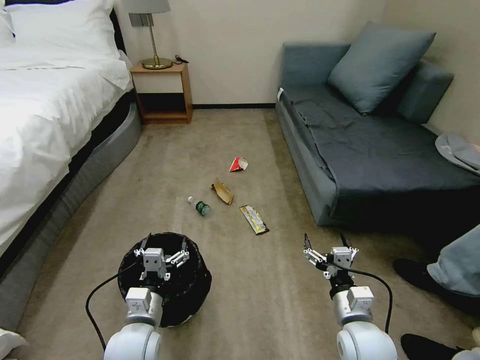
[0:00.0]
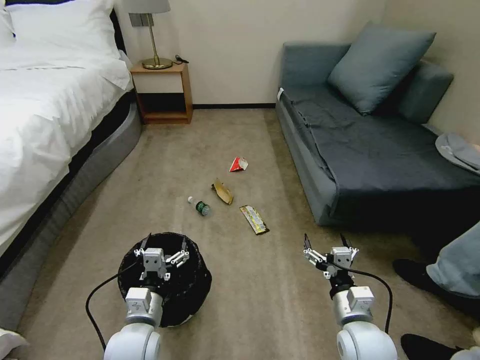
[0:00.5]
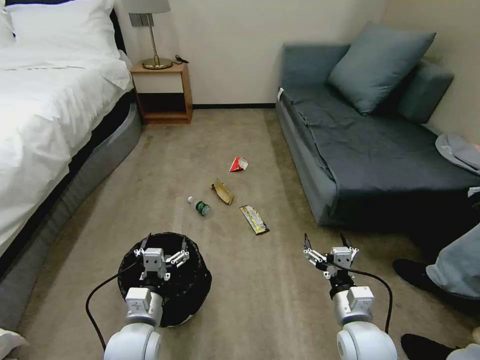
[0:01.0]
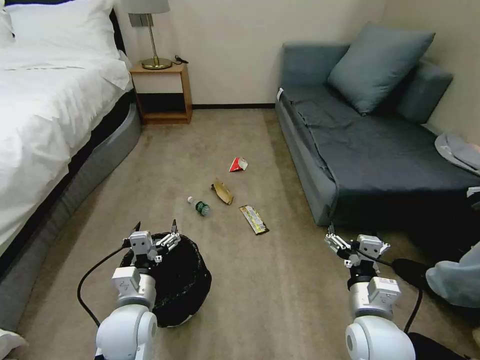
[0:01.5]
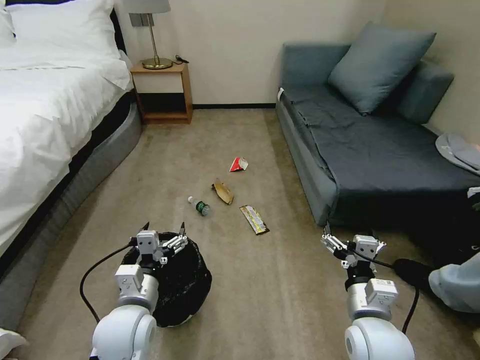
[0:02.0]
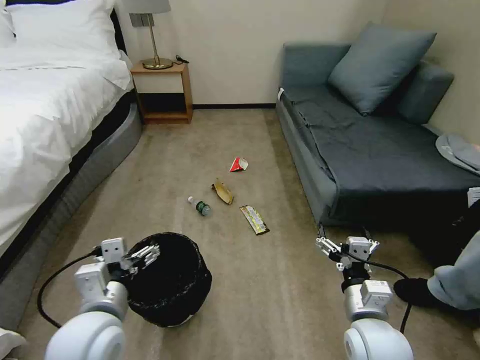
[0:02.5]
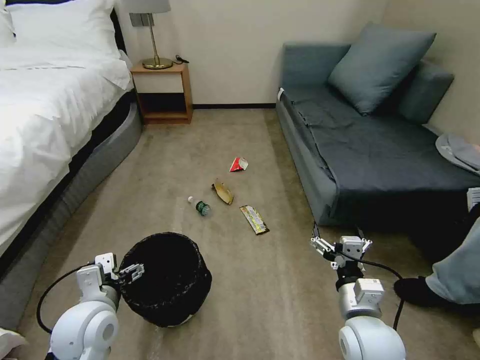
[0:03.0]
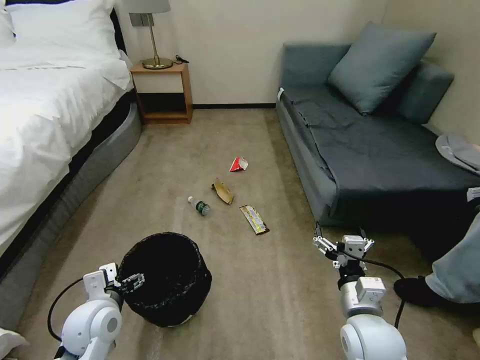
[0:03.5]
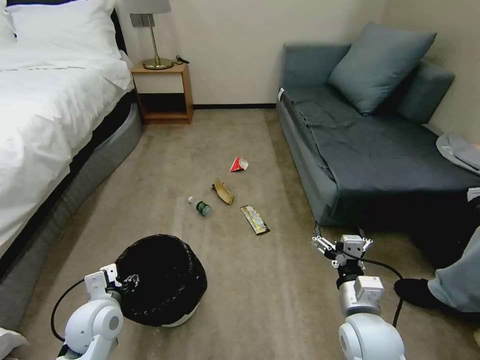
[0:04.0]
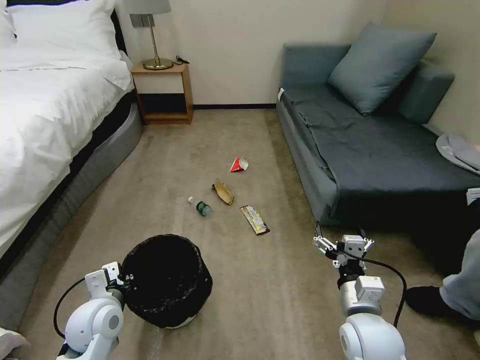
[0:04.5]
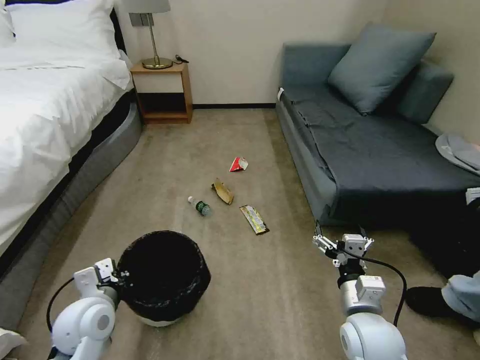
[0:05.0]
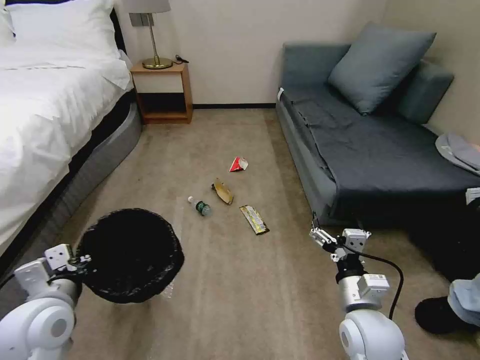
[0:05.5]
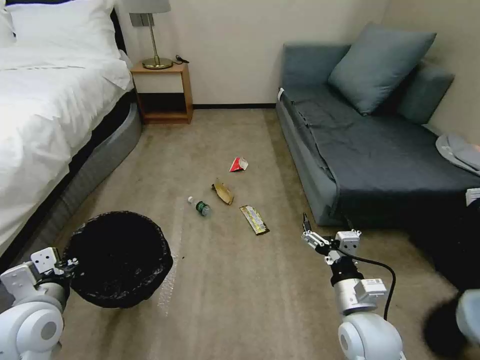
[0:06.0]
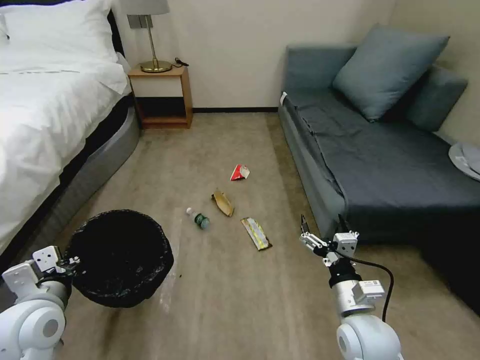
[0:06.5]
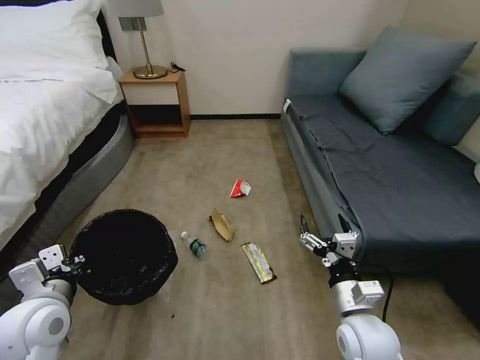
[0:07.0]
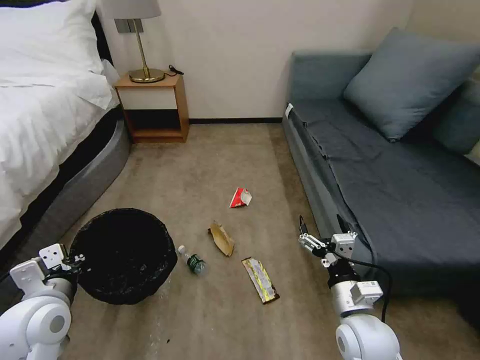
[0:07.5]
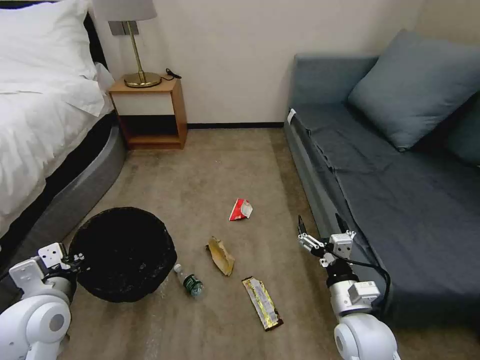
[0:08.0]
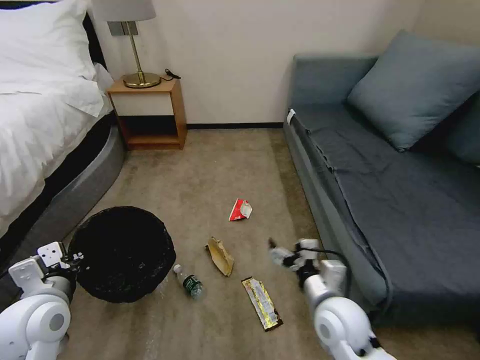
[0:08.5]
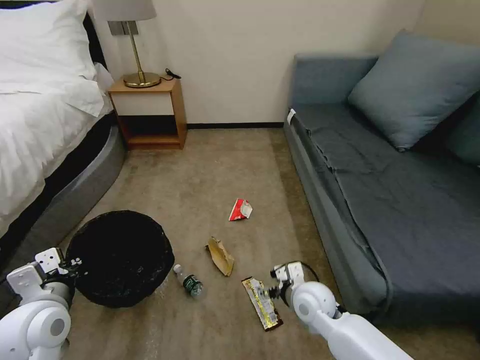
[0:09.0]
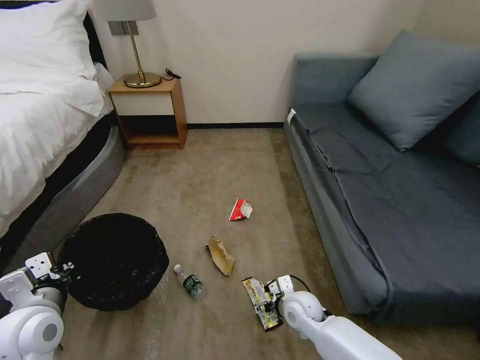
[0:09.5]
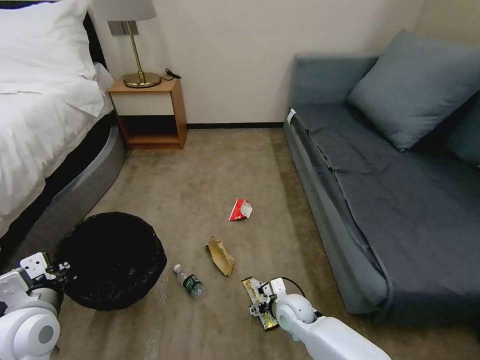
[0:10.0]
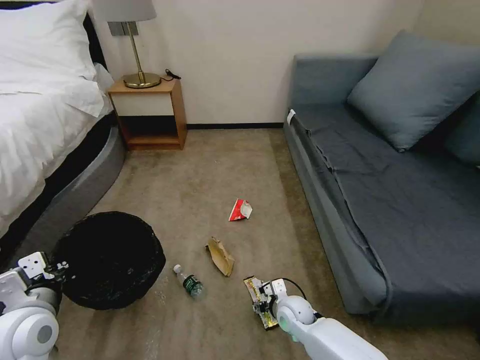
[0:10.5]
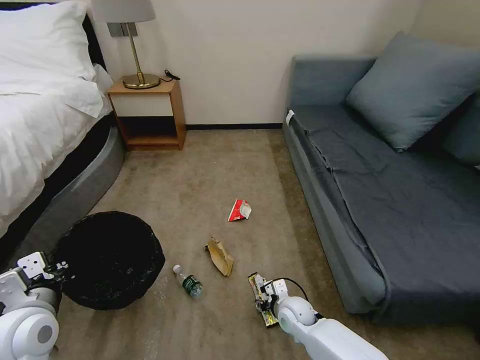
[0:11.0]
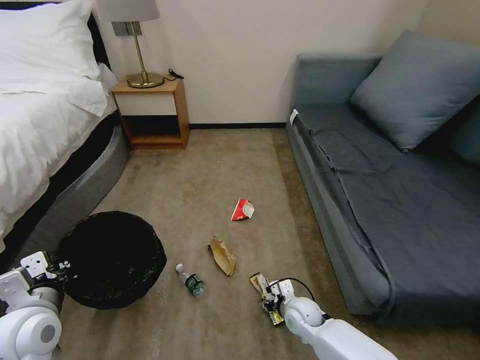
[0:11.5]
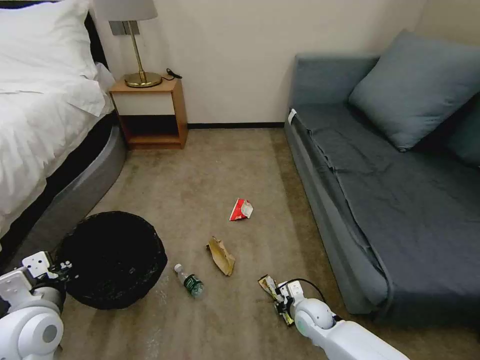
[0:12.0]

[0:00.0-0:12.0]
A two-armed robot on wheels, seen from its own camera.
Task of the whole recording: Pick up the trash bin, then pick up the garbage on the floor and place it into the trash bin.
0:02.0 to 0:04.0: The left gripper moves to the left, approximately 10 cm, and closes up.
0:04.0 to 0:06.0: The left gripper shifts roughly 10 cm upward and to the left, and closes its fingers.
0:08.0 to 0:10.0: The right gripper goes roughly 20 cm downward, forward and to the left.
0:10.0 to 0:12.0: The right gripper is displaced to the right by about 5 cm, and closes its fingers.

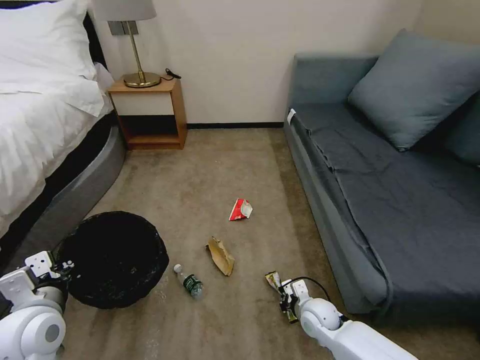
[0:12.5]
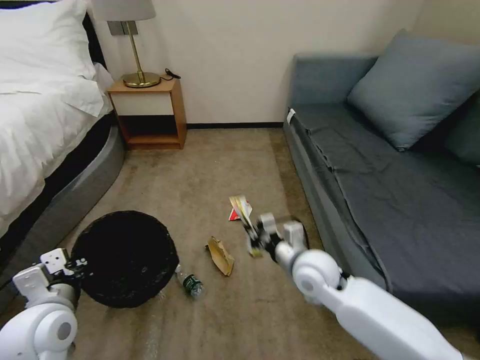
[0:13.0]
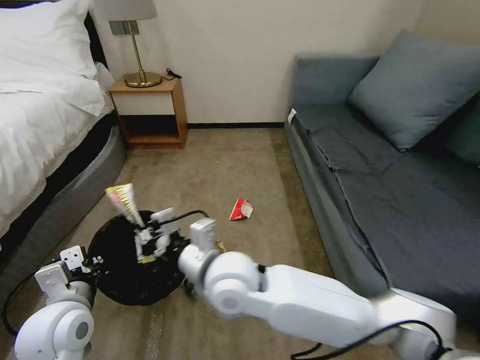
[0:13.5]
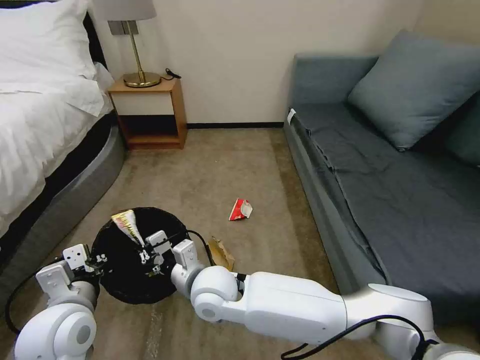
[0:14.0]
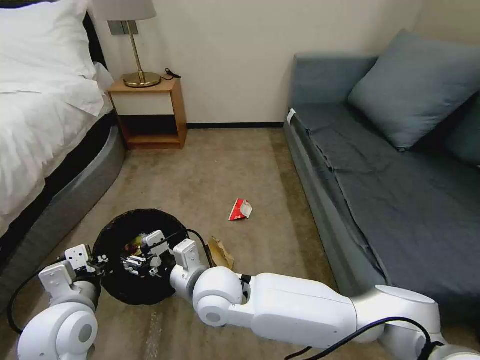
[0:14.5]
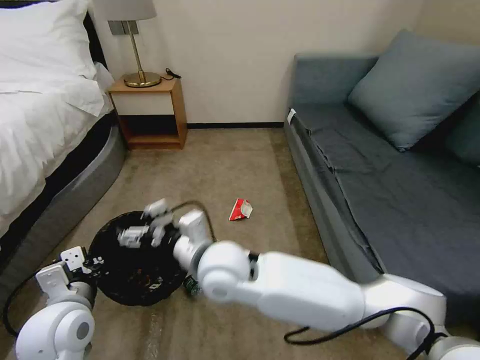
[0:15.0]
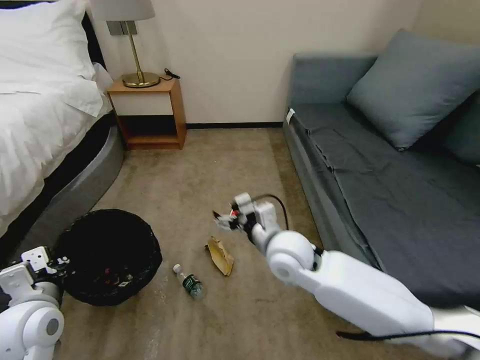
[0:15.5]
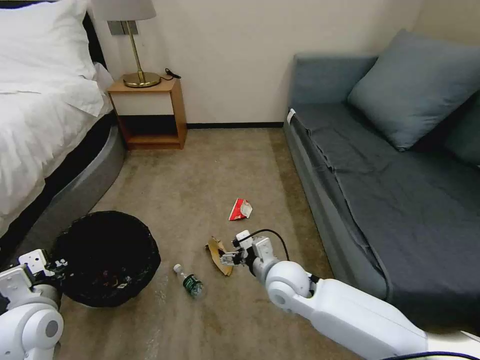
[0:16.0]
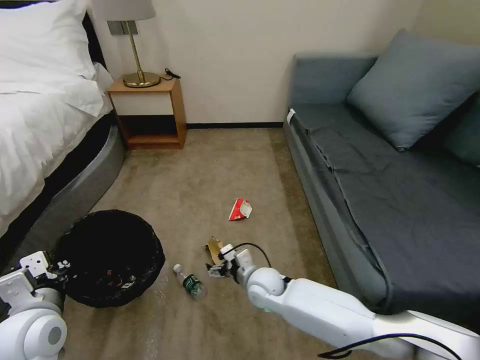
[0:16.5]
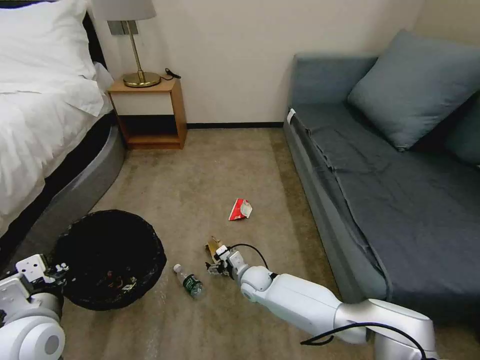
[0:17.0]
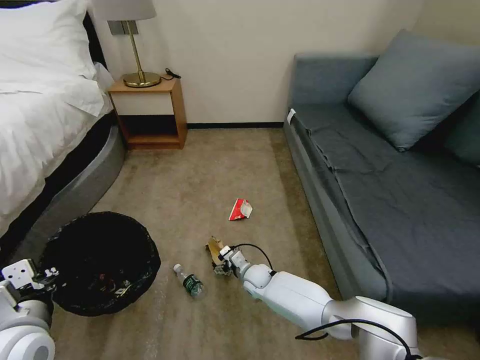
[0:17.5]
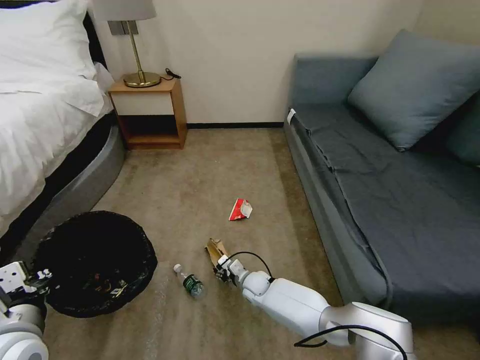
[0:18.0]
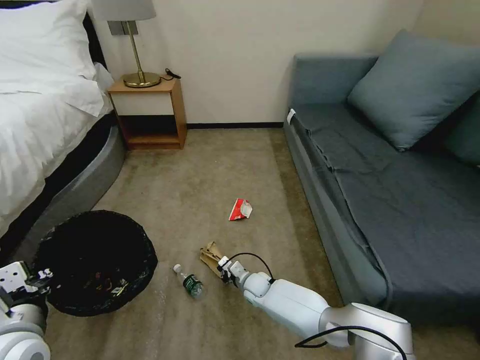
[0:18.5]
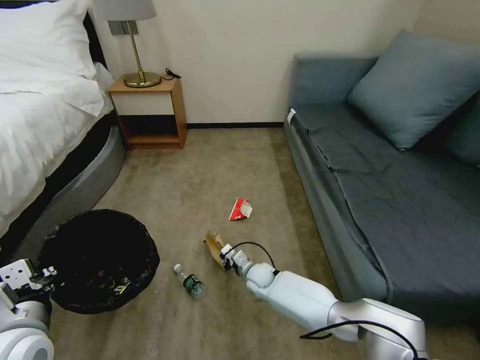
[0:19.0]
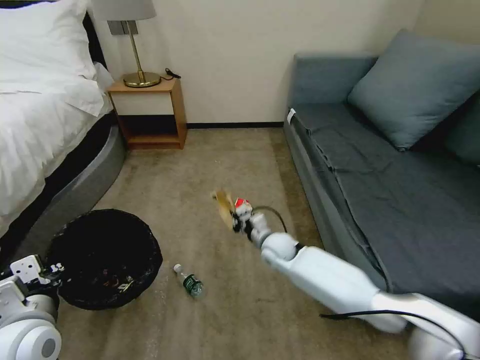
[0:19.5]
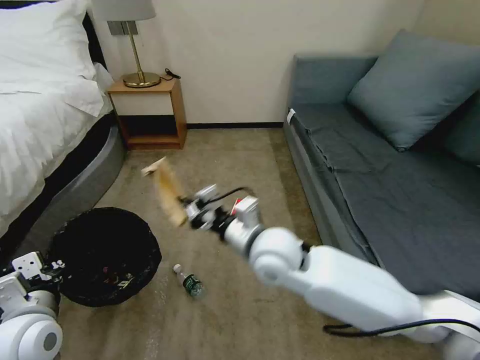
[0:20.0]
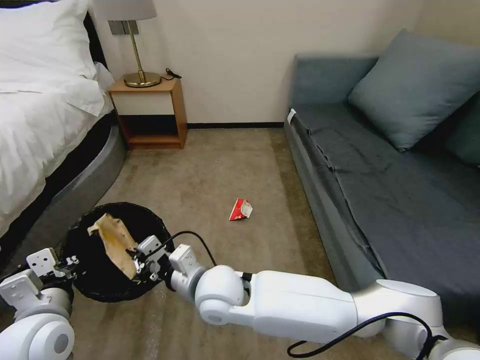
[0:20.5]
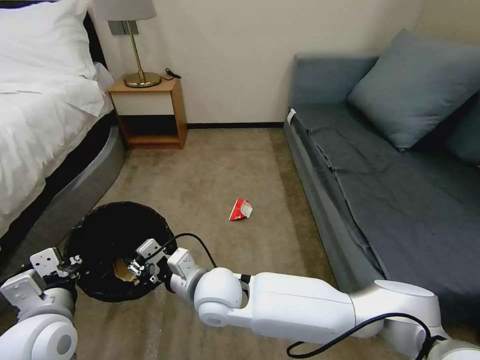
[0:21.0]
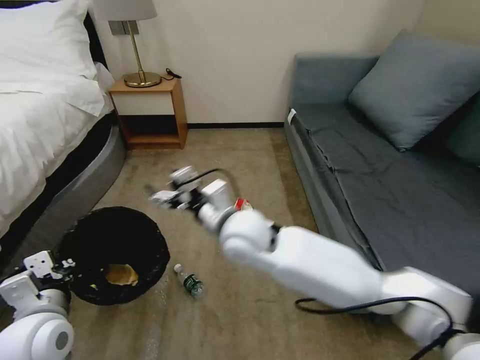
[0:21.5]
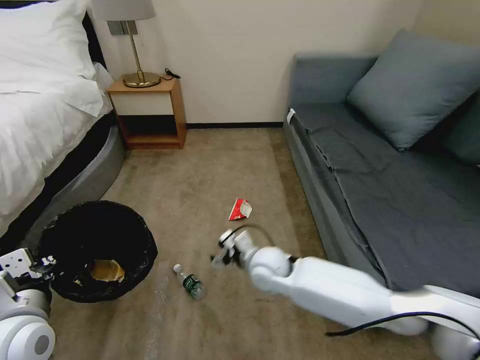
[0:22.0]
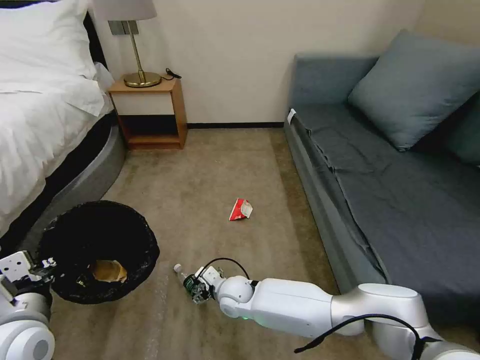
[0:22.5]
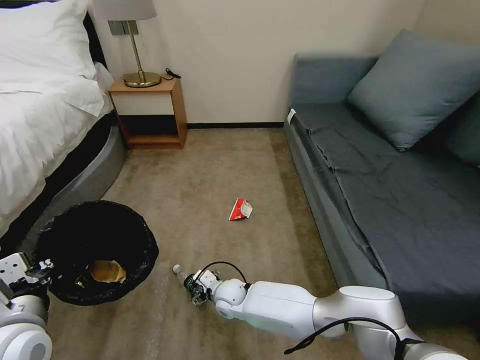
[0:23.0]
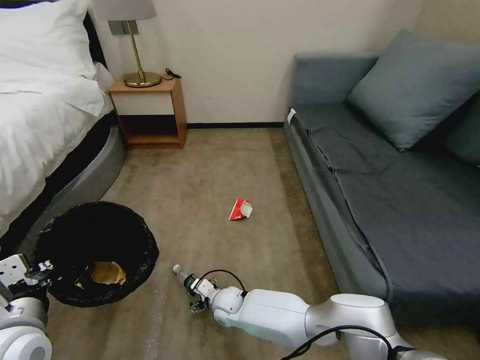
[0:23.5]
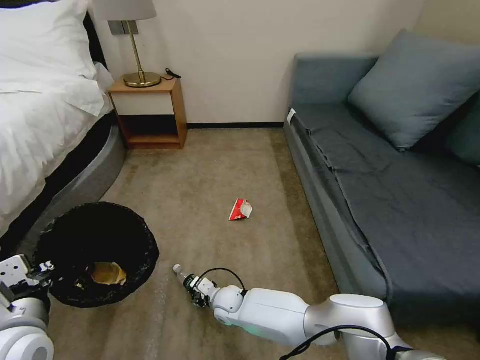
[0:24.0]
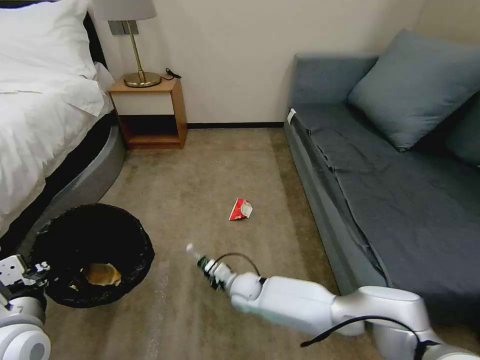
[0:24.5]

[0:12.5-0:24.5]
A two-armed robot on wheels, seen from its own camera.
Task of the whole recording: Pick up the trash bin, then pick up the garbage on the floor and place it into the trash bin.
0:12.5 to 0:14.5: The right gripper goes some 35 cm to the left and upward, and opens up. The left gripper shifts about 5 cm to the right.
0:14.5 to 0:16.5: The right gripper heads downward, to the right and forward, covering approximately 20 cm, and opens up.
0:16.5 to 0:18.5: The right gripper moves downward, approximately 15 cm, and closes.
0:18.5 to 0:20.5: The right gripper moves upward and backward, some 30 cm.
0:20.5 to 0:22.5: The right gripper moves downward, roughly 20 cm, and opens its fingers.
0:22.5 to 0:24.5: The right gripper shifts by about 5 cm, and closes.

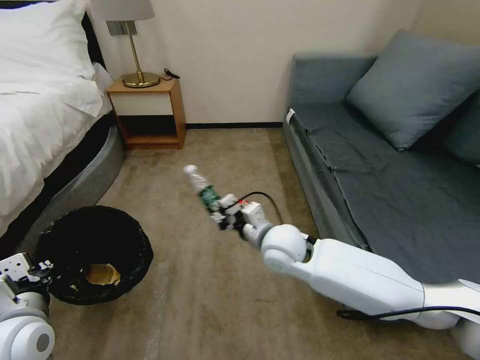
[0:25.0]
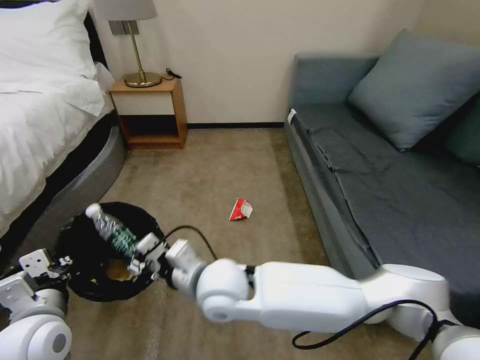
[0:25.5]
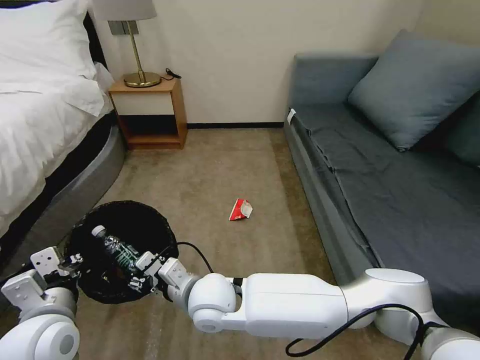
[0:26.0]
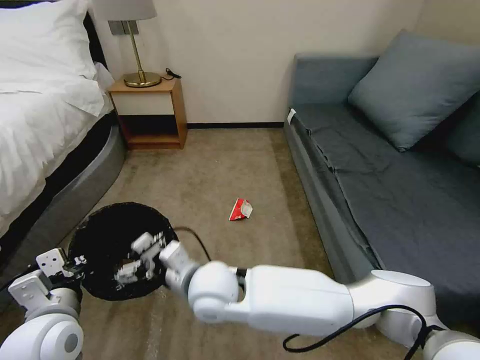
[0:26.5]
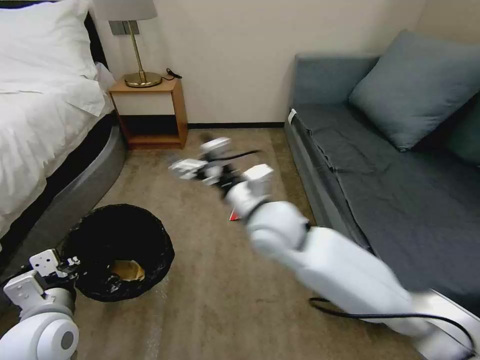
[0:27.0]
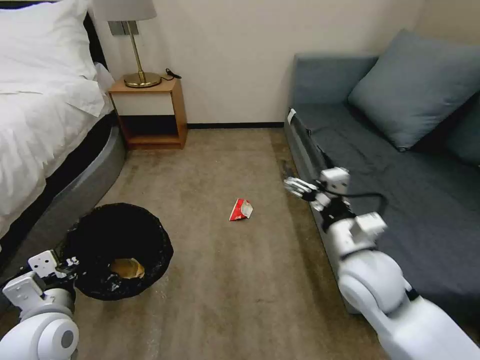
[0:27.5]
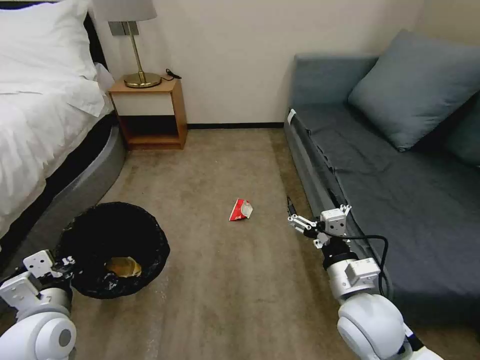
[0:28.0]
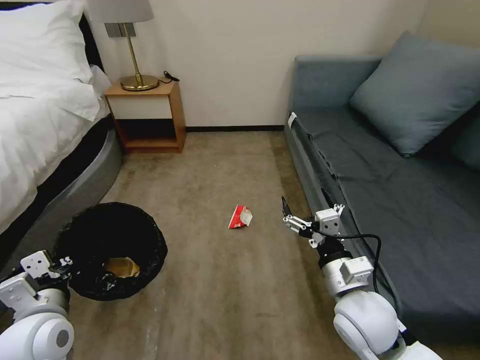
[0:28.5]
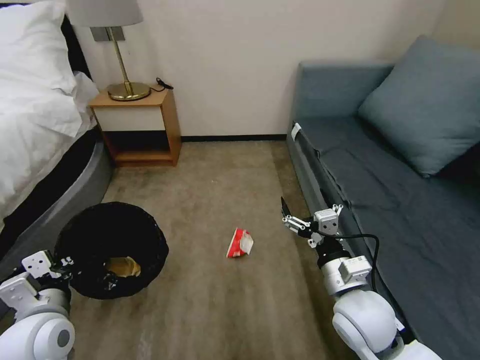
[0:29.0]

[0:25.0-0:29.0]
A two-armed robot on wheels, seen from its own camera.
Task of the whole recording: Pick up the trash bin, then pick up the garbage on the floor and place it into the trash bin.
0:25.0 to 0:27.0: The right gripper goes some 10 cm upward, reaches approximately 15 cm to the left, then returns, and opens its fingers.
0:27.0 to 0:29.0: The right gripper is displaced to the right, backward and downward by about 25 cm.
